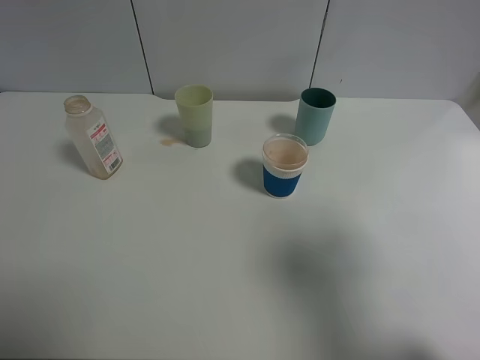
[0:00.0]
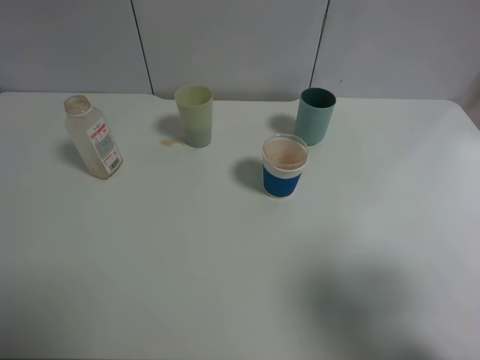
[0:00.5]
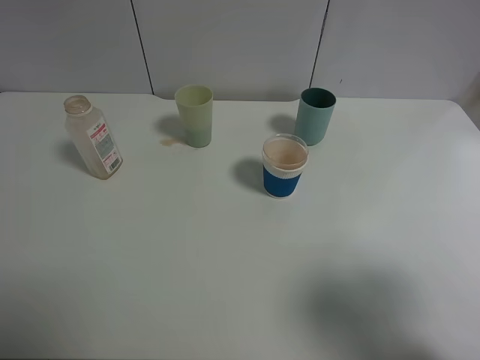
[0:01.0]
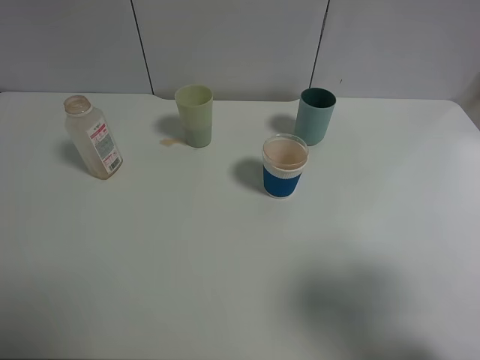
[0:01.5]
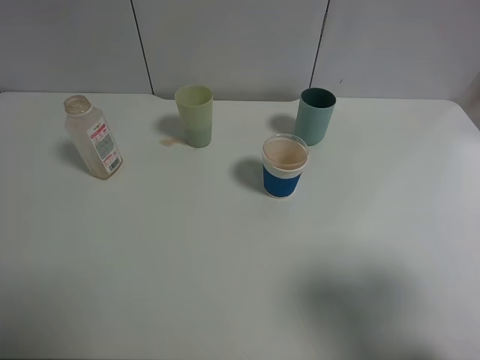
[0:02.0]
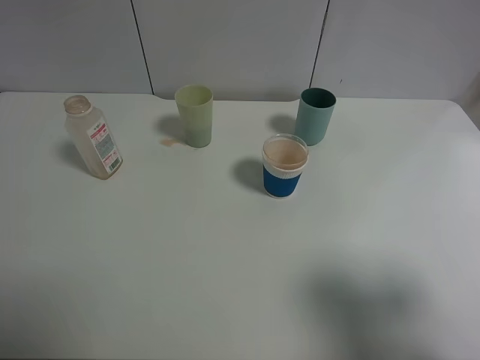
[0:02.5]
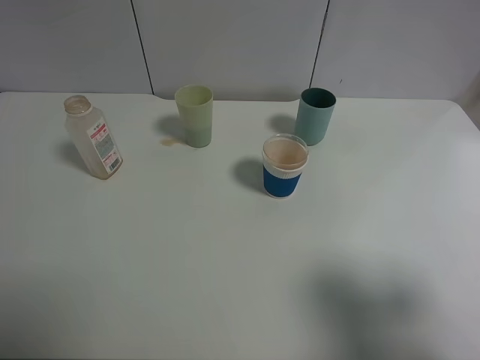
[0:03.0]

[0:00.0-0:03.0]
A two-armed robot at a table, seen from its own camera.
Task of the whole recording: use a clamp to hold the bottle of the drink, pour the beverage into a random cup, then clamp the cup containing the drink and pour the drink into another random cup.
0:00.0 to 0:01.5: There are only small adjustments of the grippers.
